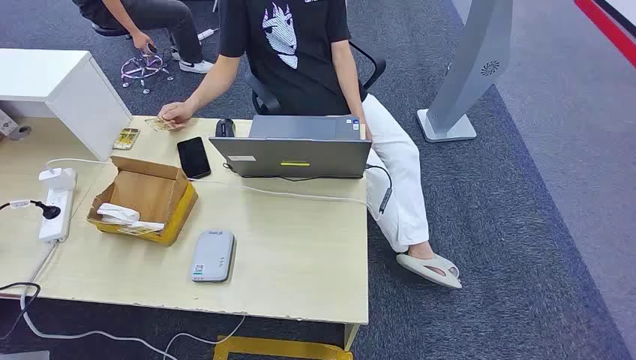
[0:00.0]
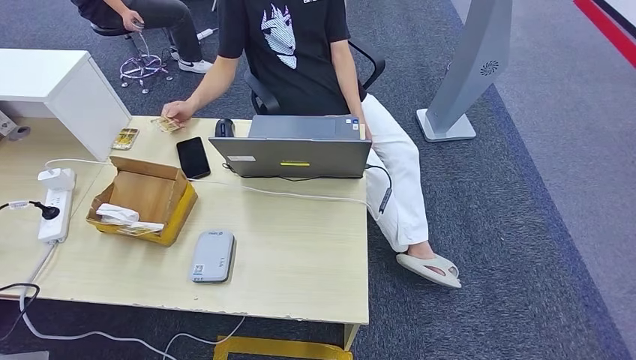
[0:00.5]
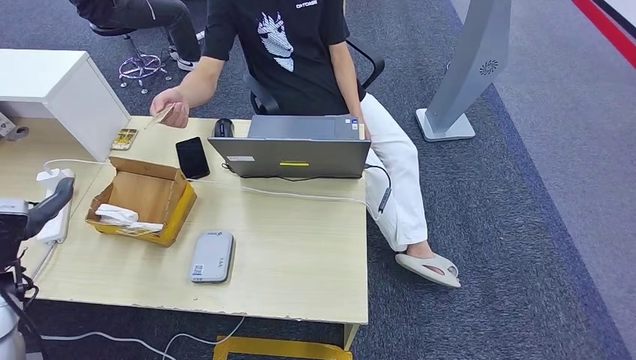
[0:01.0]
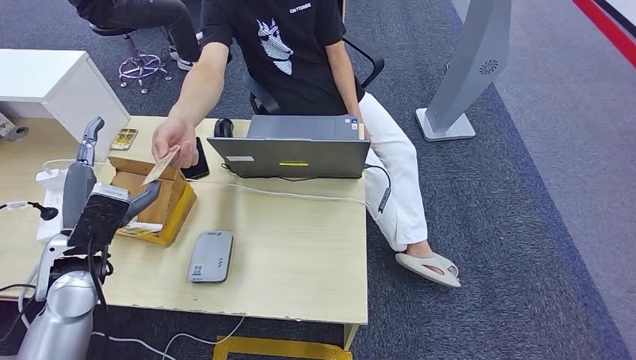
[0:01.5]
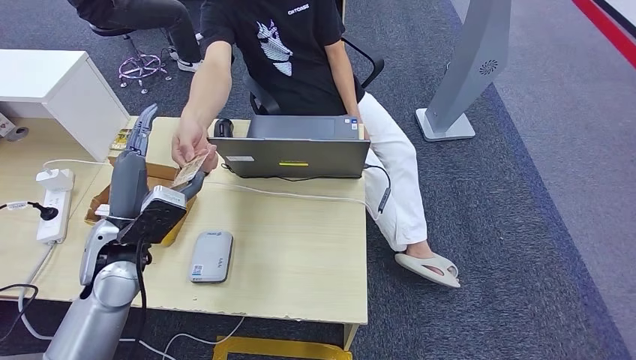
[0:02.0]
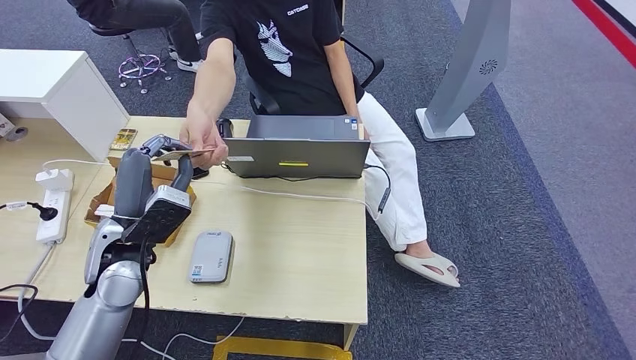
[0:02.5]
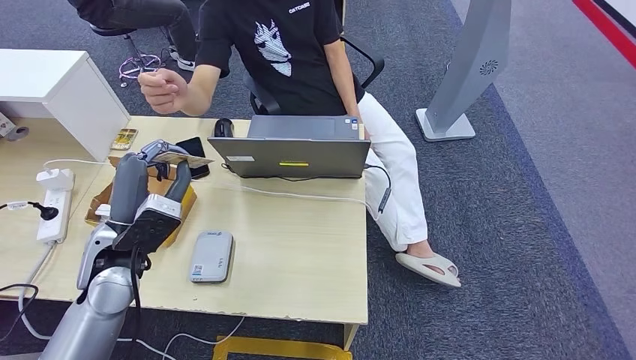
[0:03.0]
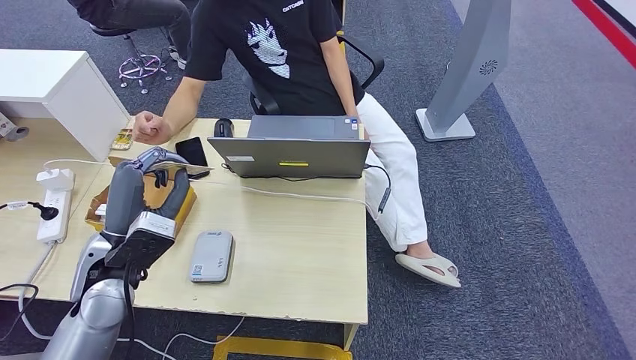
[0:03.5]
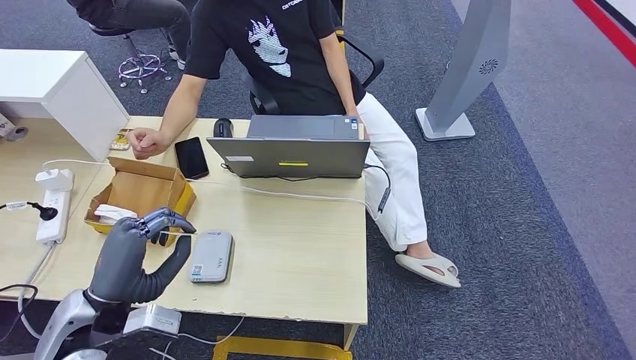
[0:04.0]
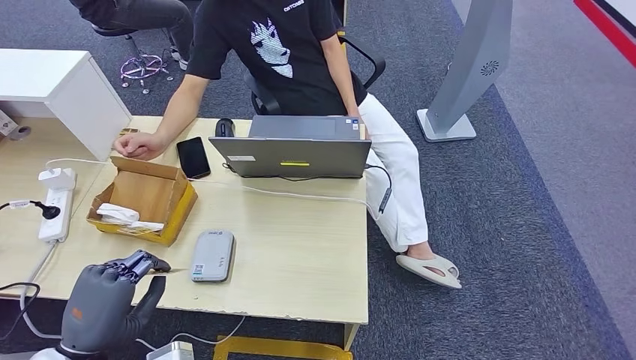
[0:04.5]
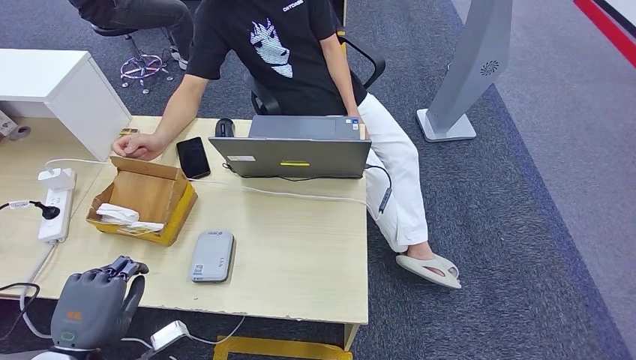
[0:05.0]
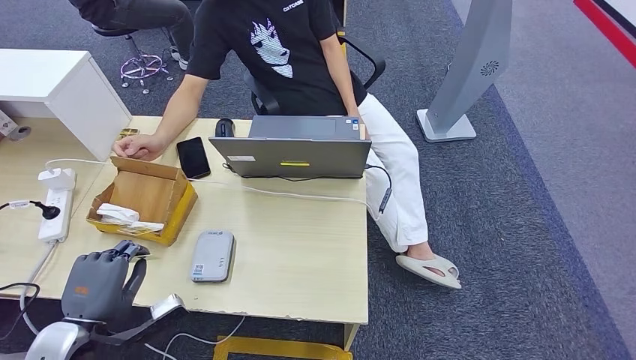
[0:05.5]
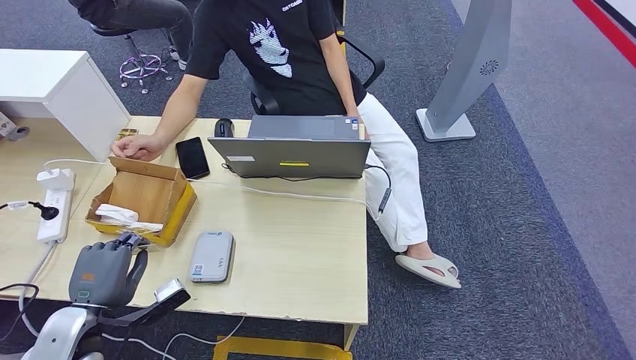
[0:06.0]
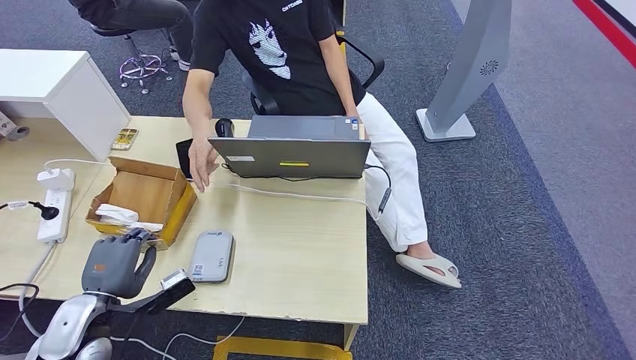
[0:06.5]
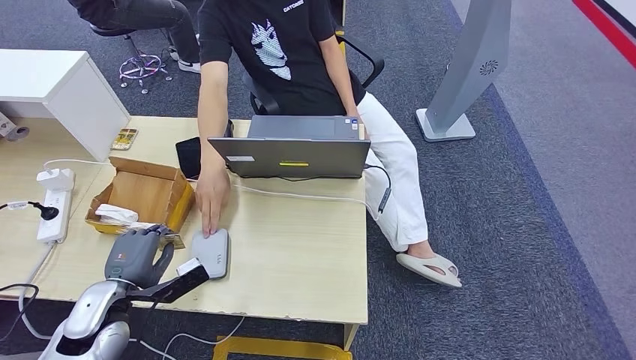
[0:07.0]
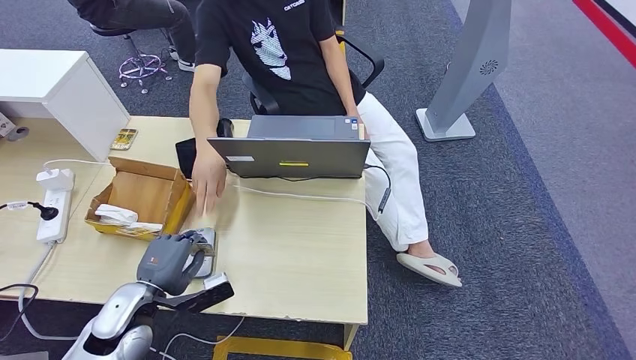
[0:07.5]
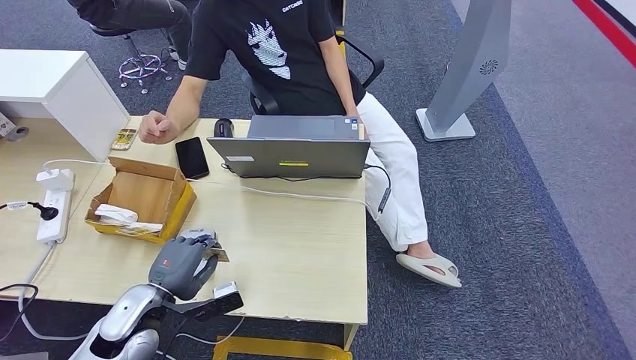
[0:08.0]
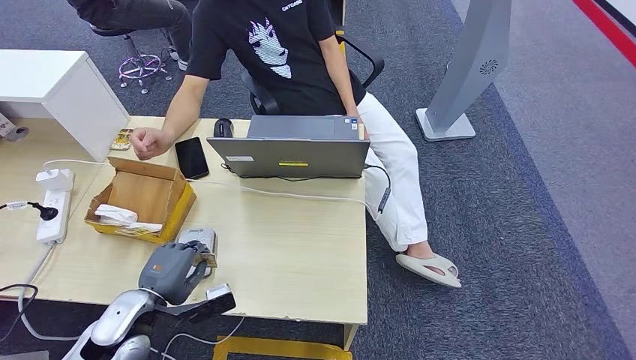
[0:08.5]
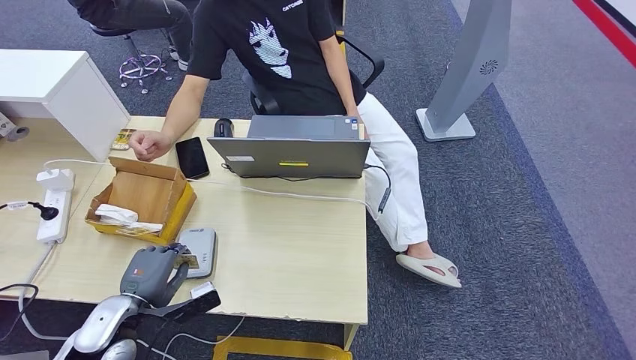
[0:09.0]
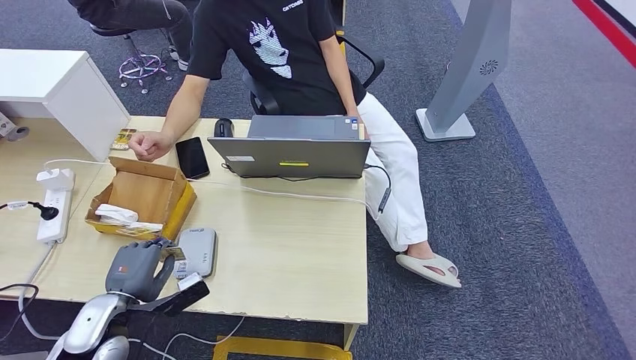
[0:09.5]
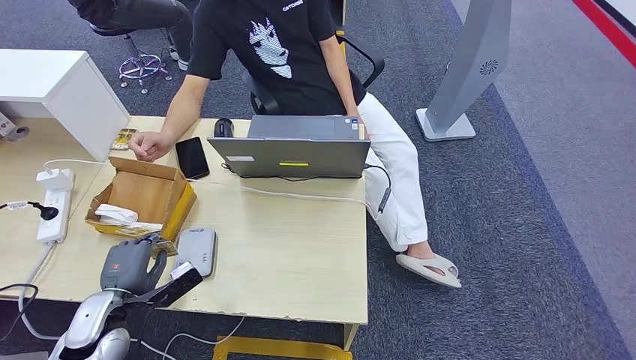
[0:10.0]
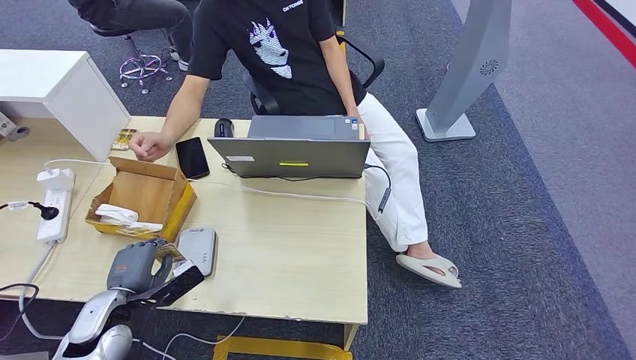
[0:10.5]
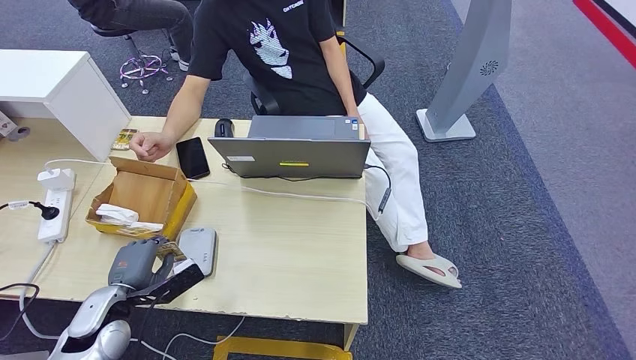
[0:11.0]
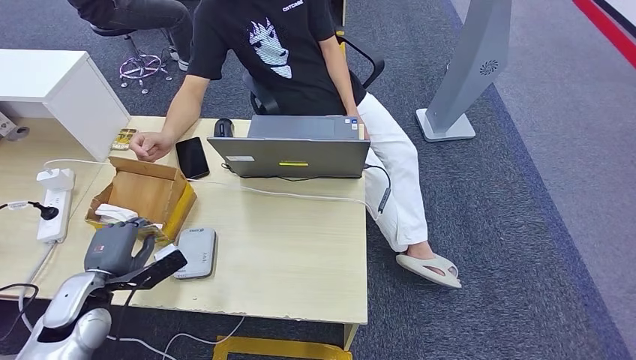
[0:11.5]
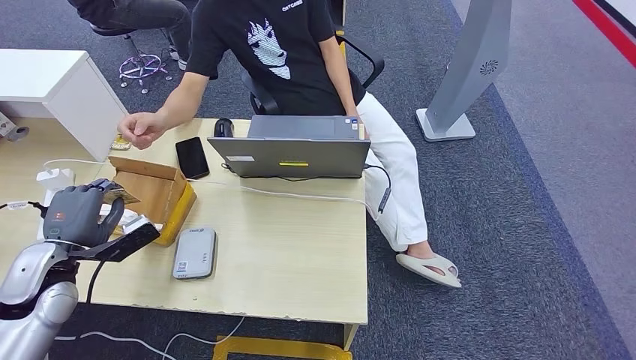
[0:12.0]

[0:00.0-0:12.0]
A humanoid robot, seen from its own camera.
Step, 0:00.0 to 0:02.0: Take the ID card from the person's hand.
Step, 0:03.5 to 0:10.0: Place the ID card on the card reader.
0:02.0 to 0:04.0: The left hand shifts approximately 10 cm backward.
0:04.0 to 0:06.0: The left hand is displaced downward and to the left by roughly 10 cm.
0:06.0 to 0:08.0: The left hand shifts some 10 cm to the right and forward.
0:08.0 to 0:10.0: The left hand is displaced to the left by roughly 5 cm.
0:10.0 to 0:12.0: The left hand goes roughly 10 cm upward and to the left.

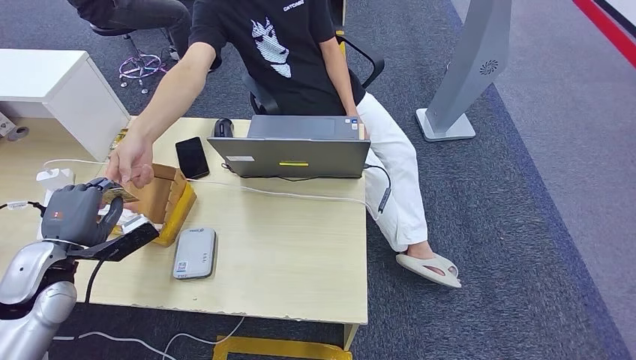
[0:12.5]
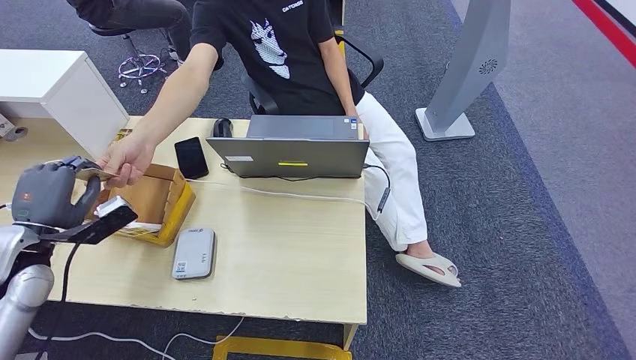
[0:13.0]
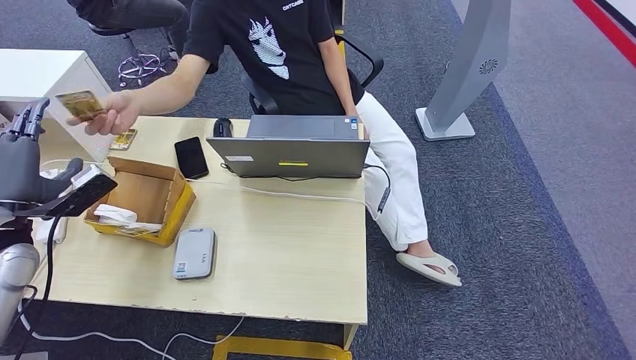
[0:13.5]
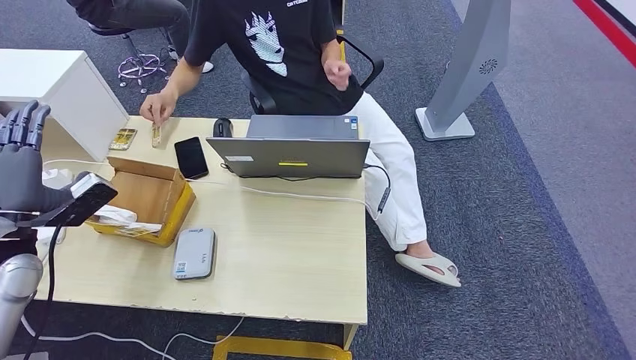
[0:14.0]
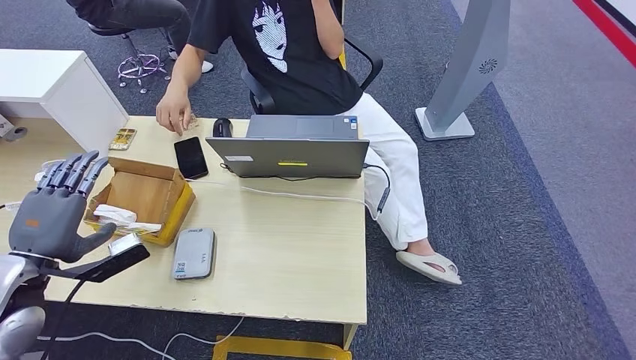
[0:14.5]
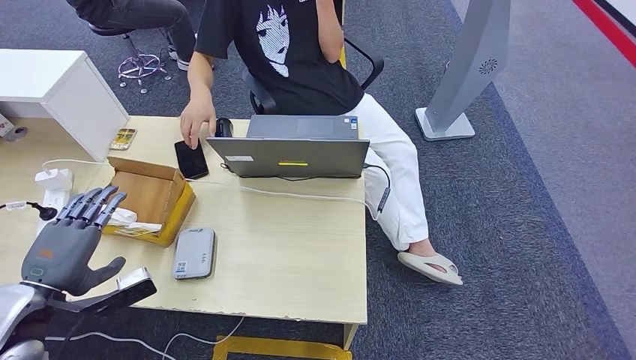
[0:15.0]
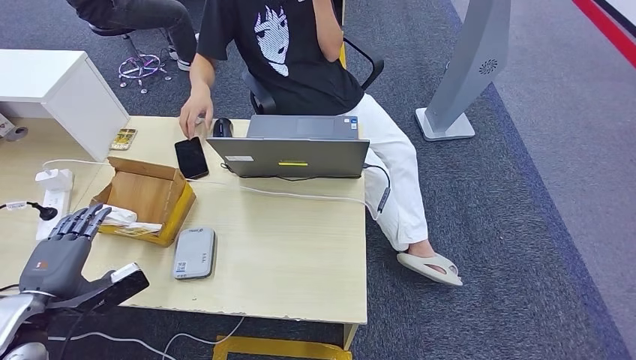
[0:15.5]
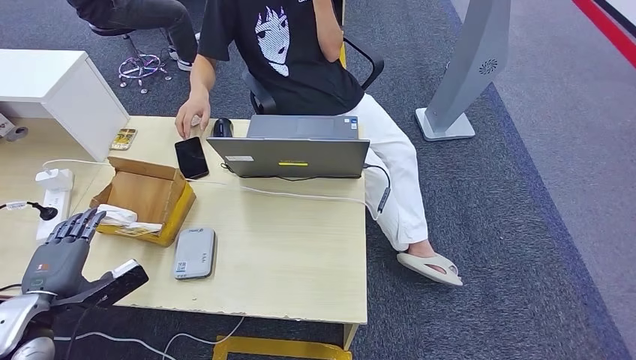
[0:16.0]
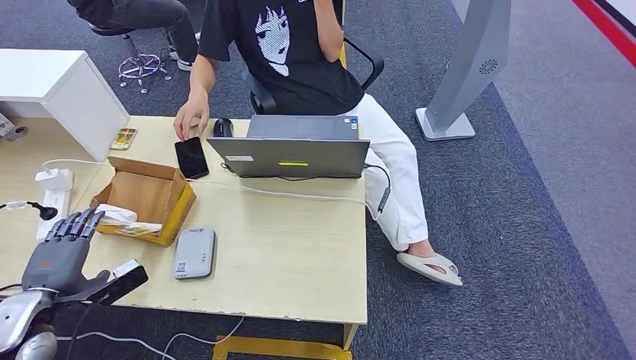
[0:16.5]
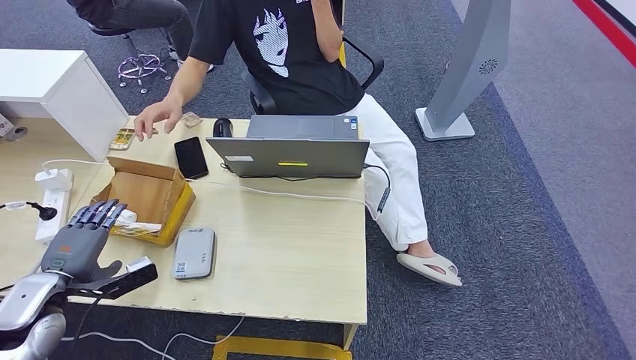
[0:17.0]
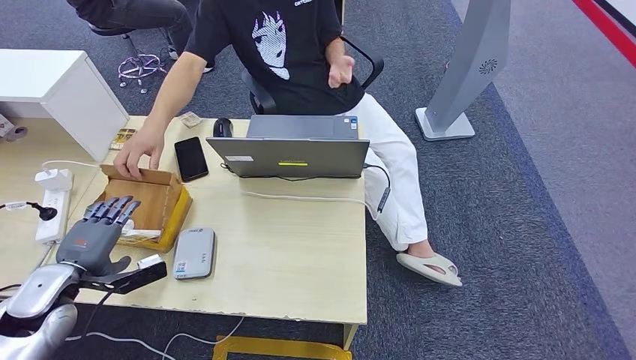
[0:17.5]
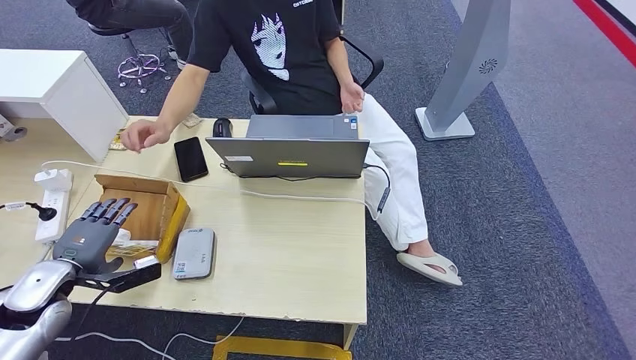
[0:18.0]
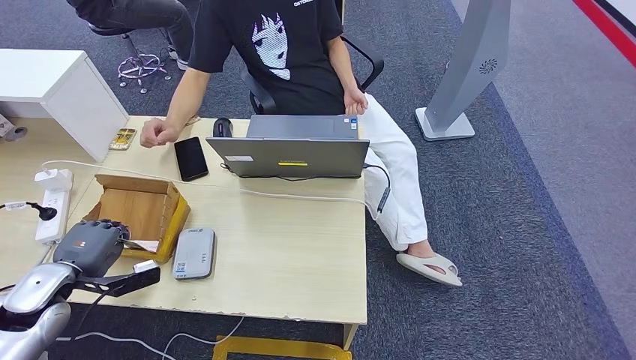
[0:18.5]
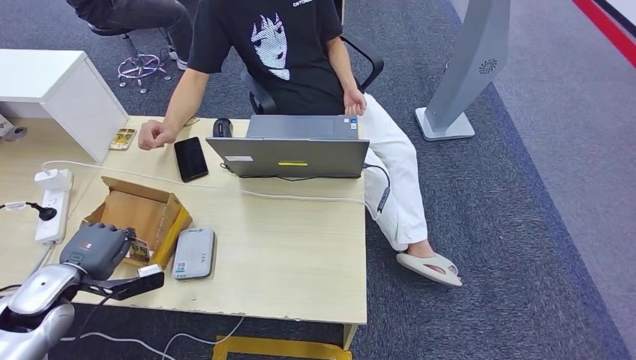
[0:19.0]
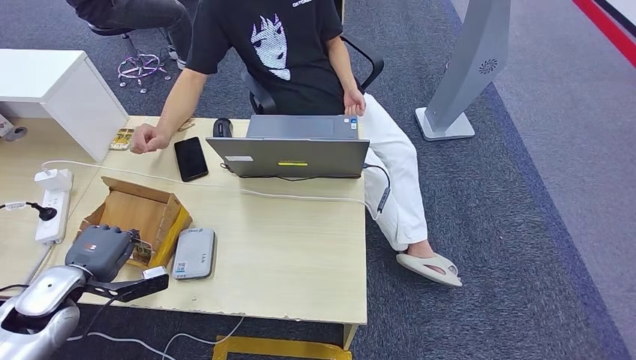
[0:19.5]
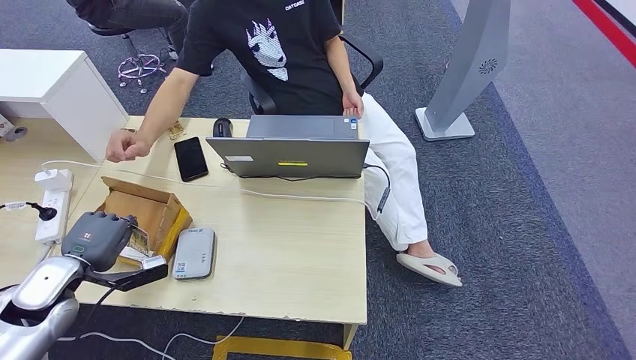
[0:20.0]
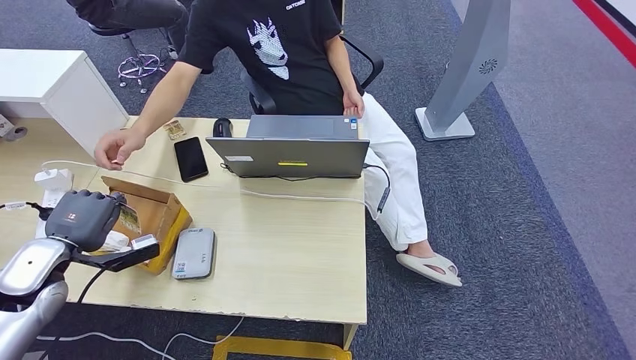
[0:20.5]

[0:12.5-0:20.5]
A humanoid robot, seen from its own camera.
Step, 0:13.5 to 0:16.5: Hand the ID card to the person.
Step, 0:19.0 to 0:20.0: Pick up the room key from the key card box.
0:12.5 to 0:14.5: The left hand travels upward by about 5 cm.
0:14.5 to 0:16.5: The left hand heads downward, covering some 10 cm.
0:16.5 to 0:18.5: The left hand is displaced forward by some 5 cm.
0:18.5 to 0:20.5: The left hand shifts by approximately 5 cm.
